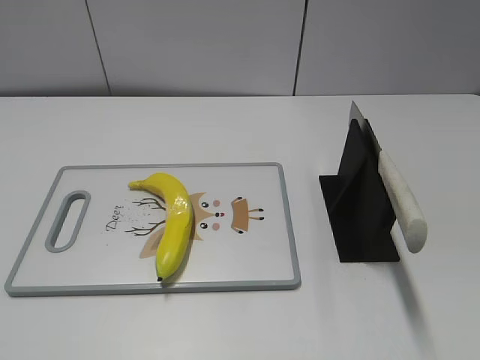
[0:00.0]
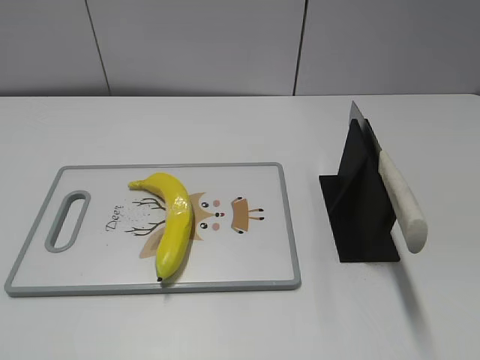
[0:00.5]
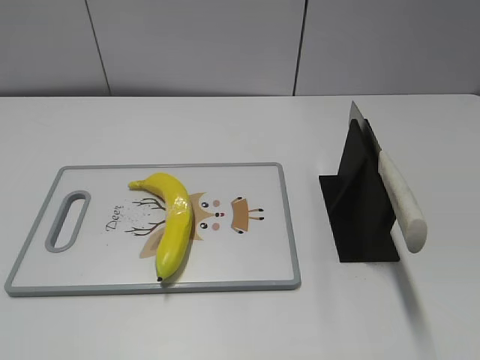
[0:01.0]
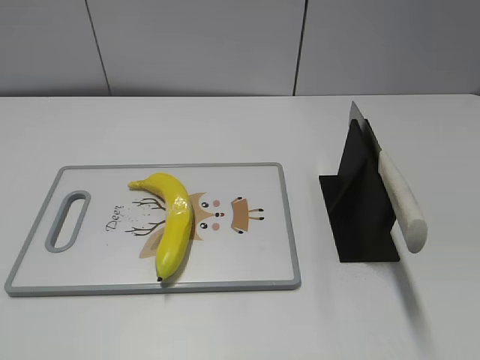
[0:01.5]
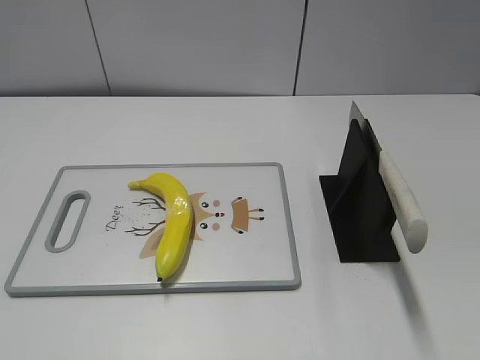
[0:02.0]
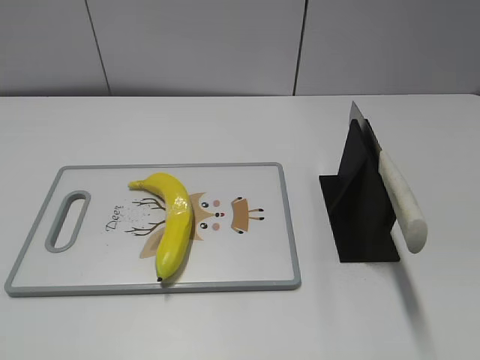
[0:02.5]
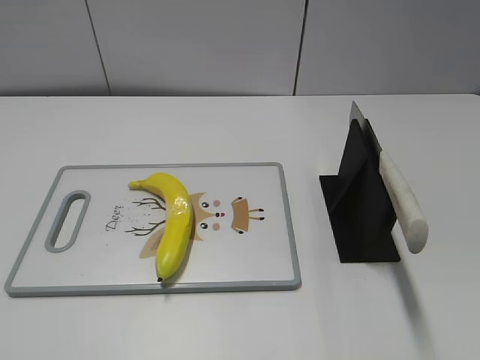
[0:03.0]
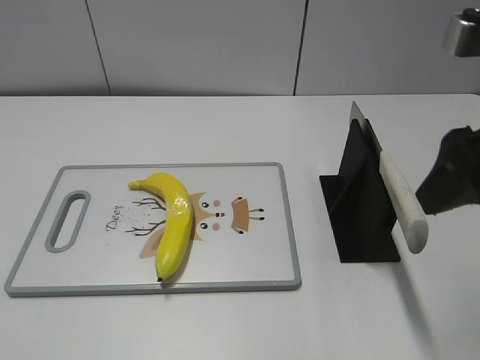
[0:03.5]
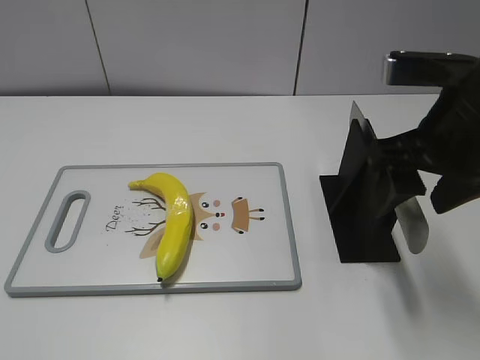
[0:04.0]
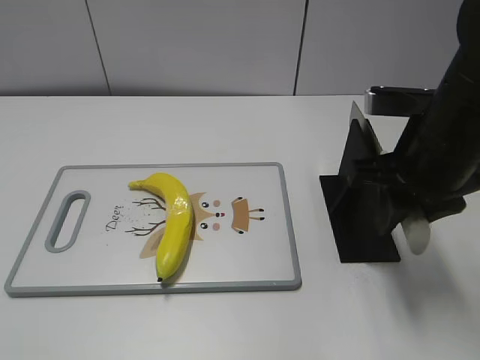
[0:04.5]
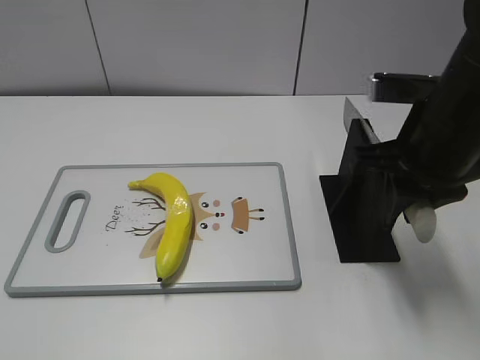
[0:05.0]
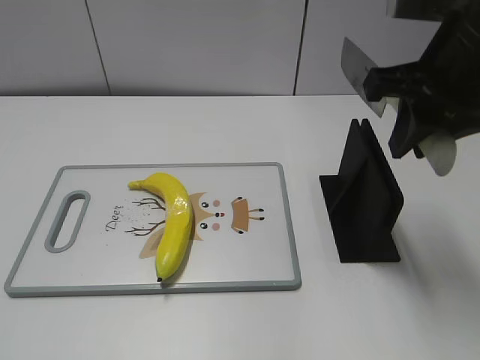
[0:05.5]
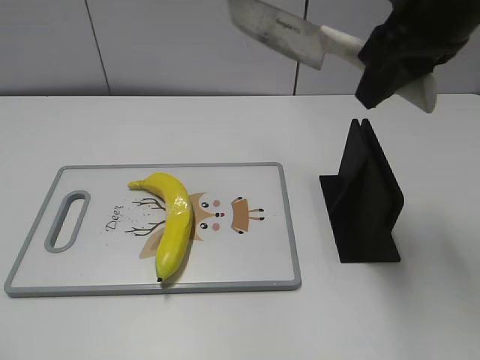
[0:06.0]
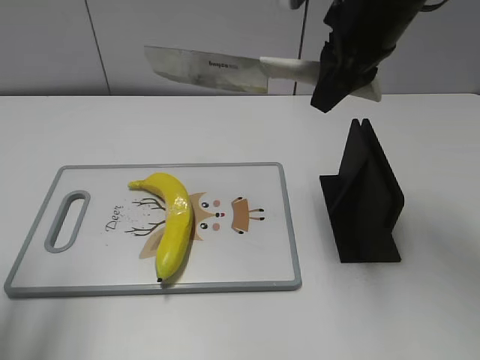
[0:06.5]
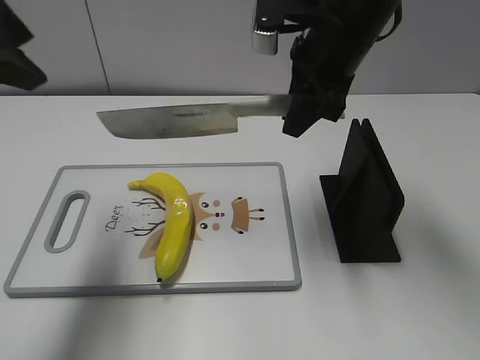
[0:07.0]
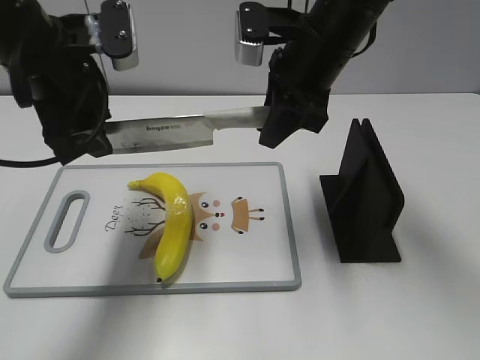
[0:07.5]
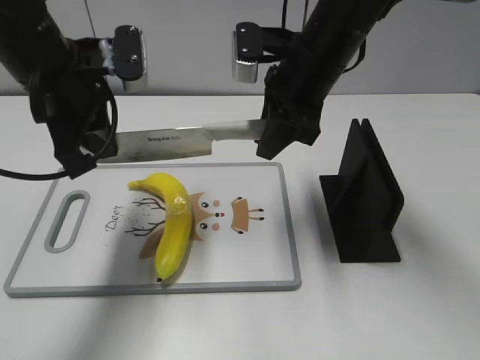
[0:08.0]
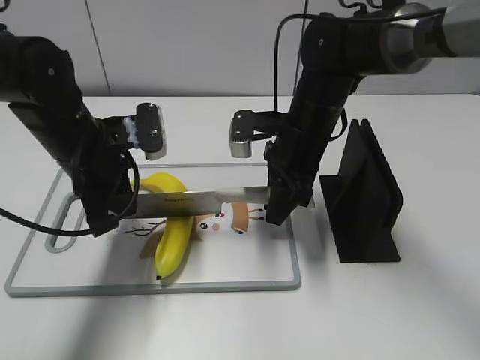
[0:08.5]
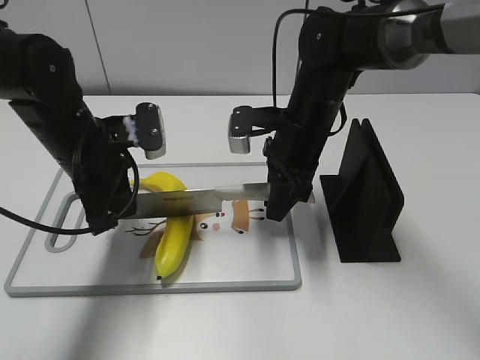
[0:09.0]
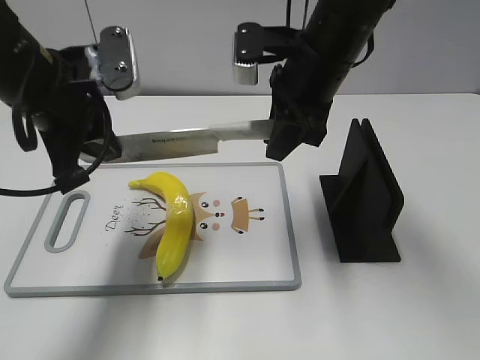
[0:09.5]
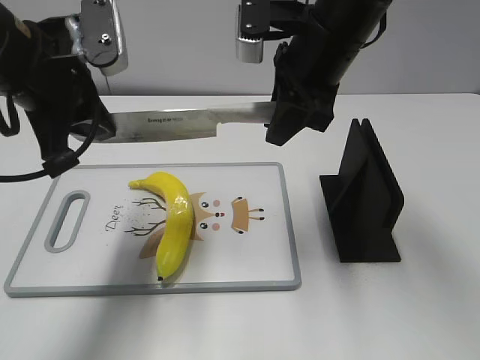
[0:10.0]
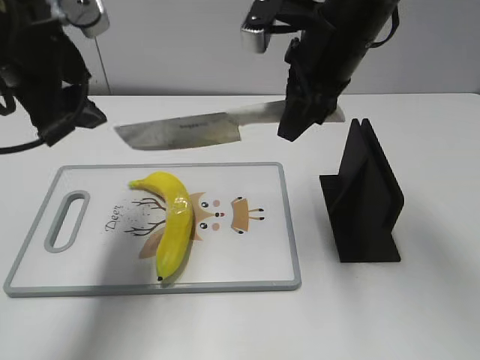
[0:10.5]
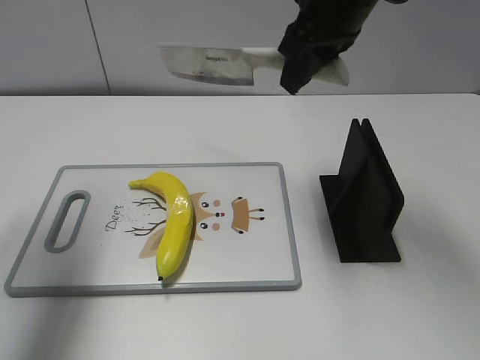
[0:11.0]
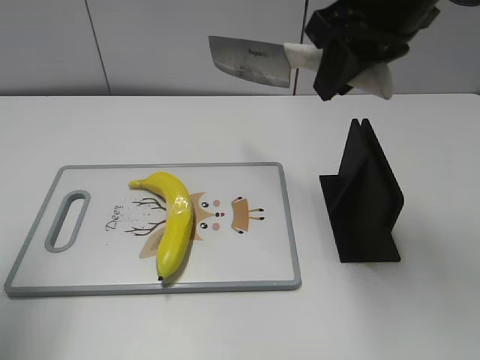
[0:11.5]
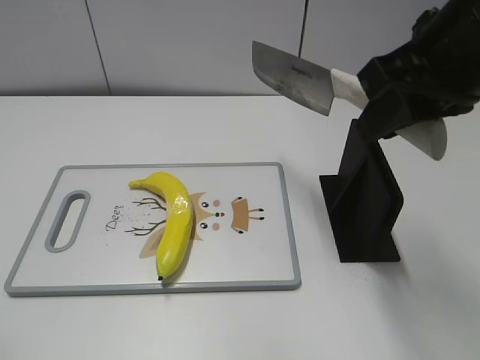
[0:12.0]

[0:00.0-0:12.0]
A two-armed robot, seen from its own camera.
Task of the whole recording: cut plastic banana.
Step, 0:00.0 to 0:05.5: Grab the knife handle with your right hand.
Step, 0:06.0 to 0:09.0: Lift the knife with your right hand.
Step, 0:10.0 to 0:10.5: Cut the banana with your right hand.
0:02.0 to 0:04.0: The right gripper is displaced forward and to the left by some 25 cm.
0:04.0 to 0:06.0: The left gripper moves approximately 5 cm; the right gripper heads upward and forward, covering some 10 cm, and closes its fingers.
0:06.0 to 0:08.0: The left gripper travels forward and to the right by about 30 cm, and closes. Meanwhile the right gripper goes approximately 15 cm downward, forward and to the left.
0:08.0 to 0:10.0: The right gripper travels downward and back again, some 10 cm each way. The left gripper travels downward and back again, some 10 cm each way.
0:10.0 to 0:12.0: The left gripper shifts roughly 25 cm backward and to the left, and opens up, while the right gripper is displaced backward, to the right and upward by approximately 15 cm.

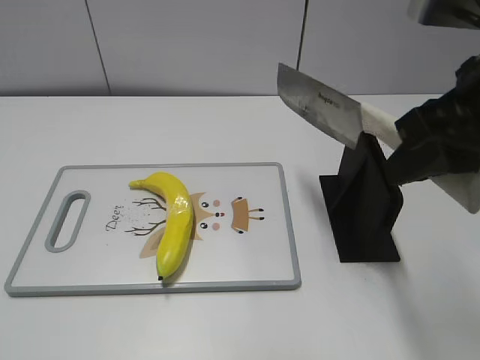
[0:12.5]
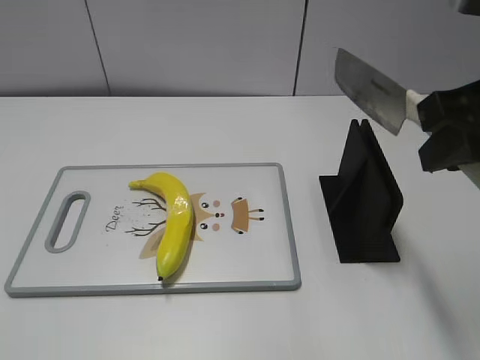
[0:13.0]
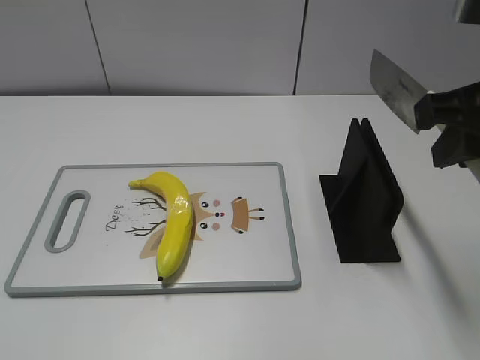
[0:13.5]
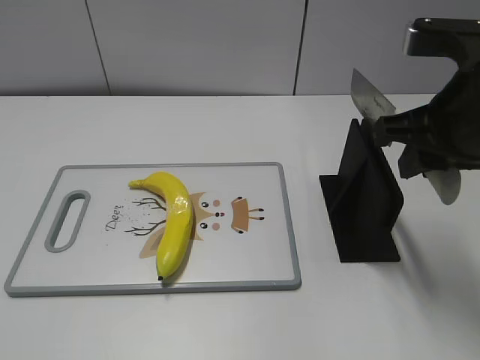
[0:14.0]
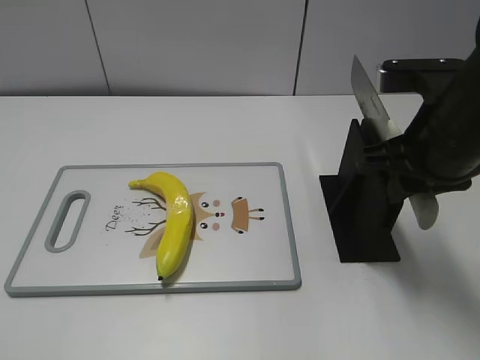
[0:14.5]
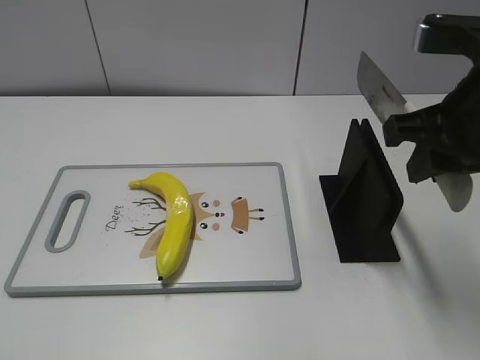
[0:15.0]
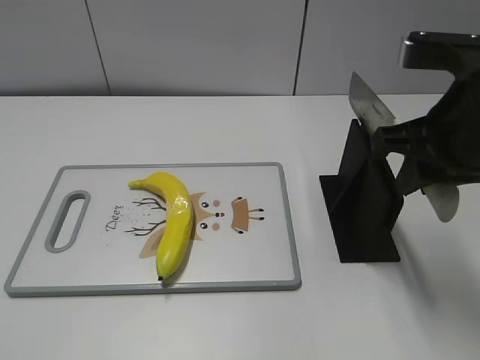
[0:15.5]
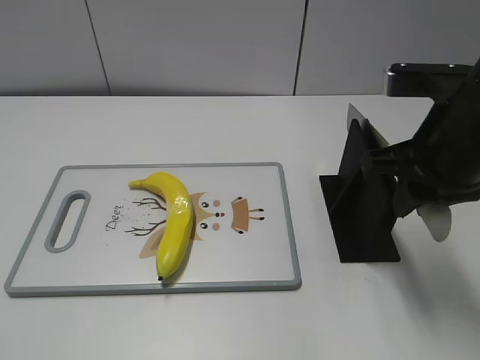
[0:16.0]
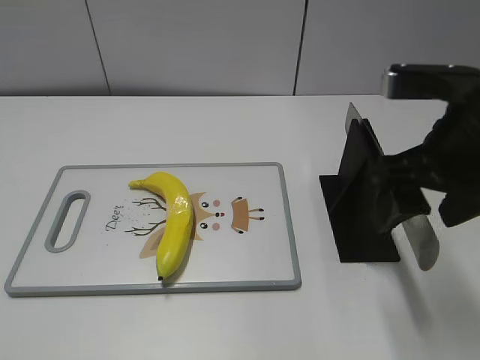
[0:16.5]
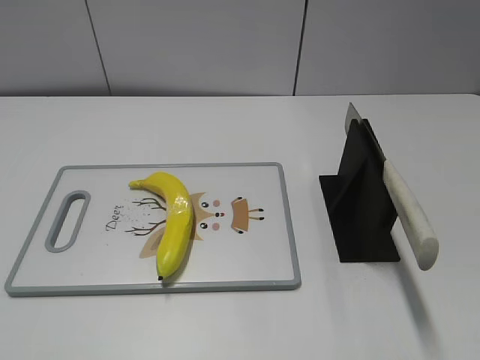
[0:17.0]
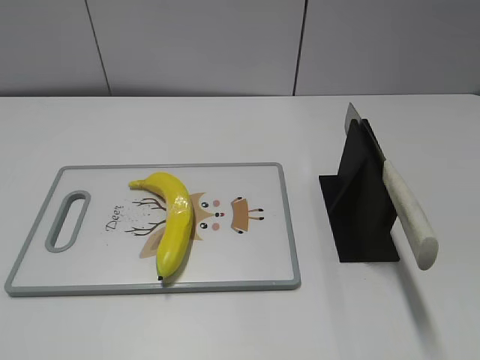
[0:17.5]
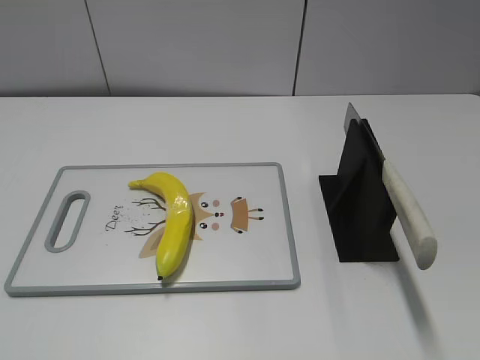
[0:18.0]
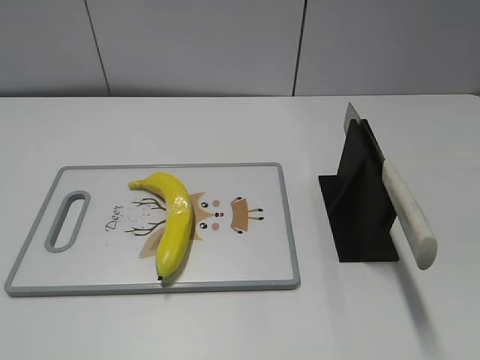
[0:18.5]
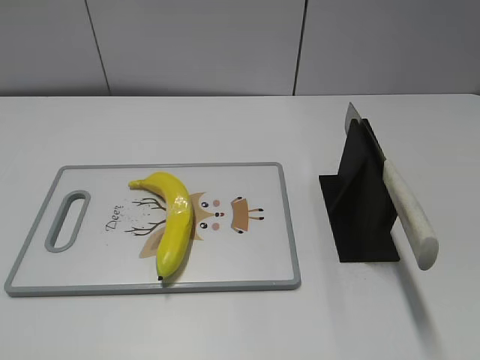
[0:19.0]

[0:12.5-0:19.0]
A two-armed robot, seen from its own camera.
Task of the whole recording: cut plastic banana.
Step, 0:12.5 to 0:19.0: Place the knife on the storage rack with your right hand.
0:12.5 to 0:14.5: The right gripper shifts some 10 cm downward and forward.
0:14.5 to 0:17.0: The right gripper goes about 20 cm backward and upward, and opens its fingers.
